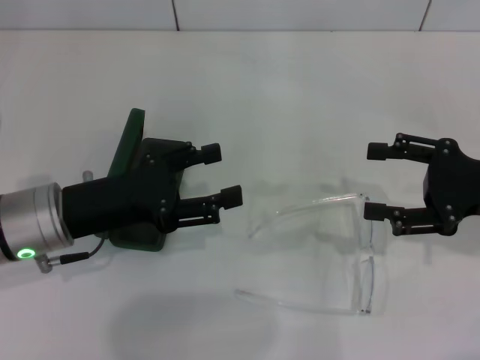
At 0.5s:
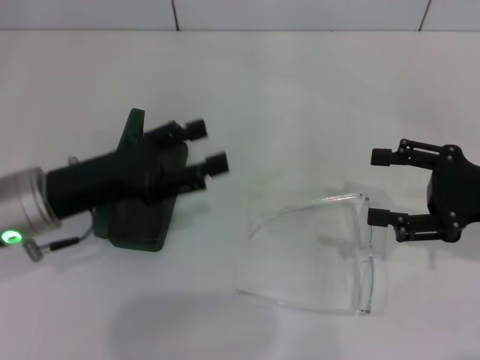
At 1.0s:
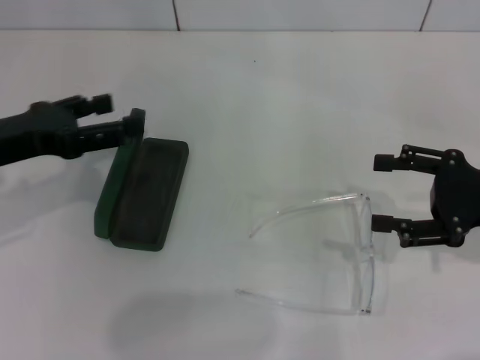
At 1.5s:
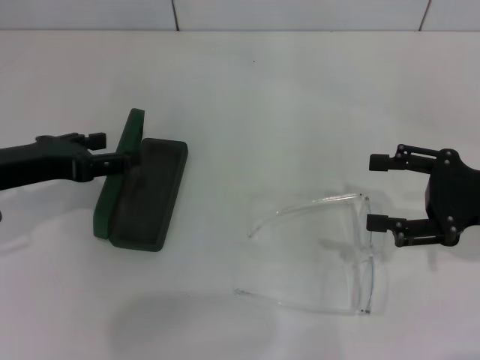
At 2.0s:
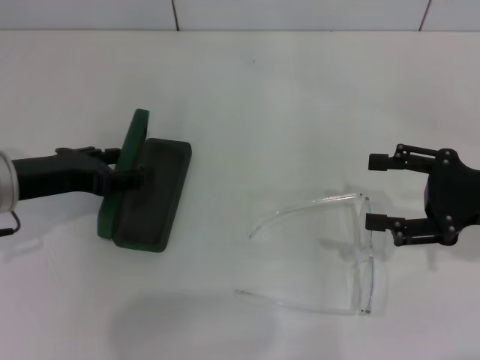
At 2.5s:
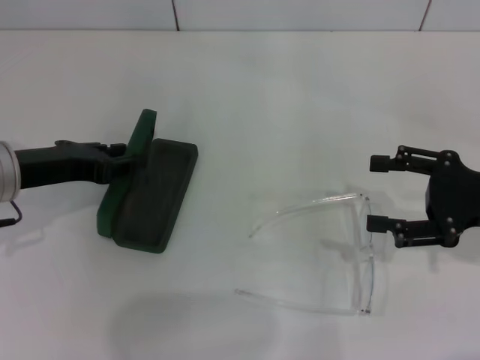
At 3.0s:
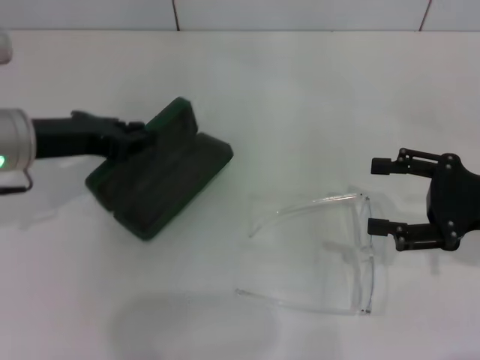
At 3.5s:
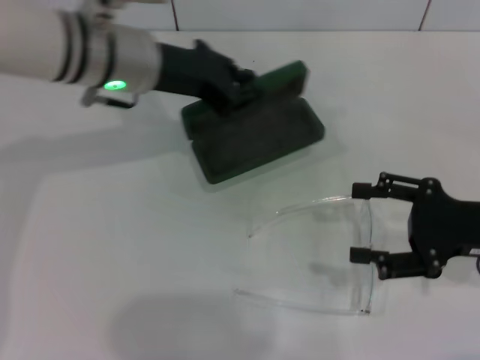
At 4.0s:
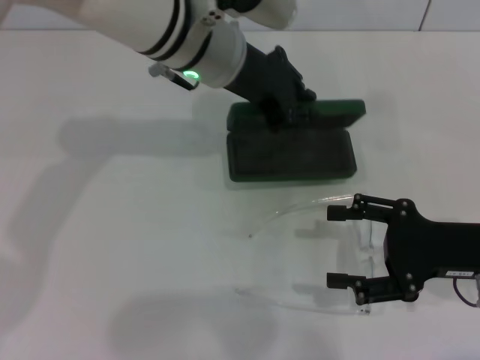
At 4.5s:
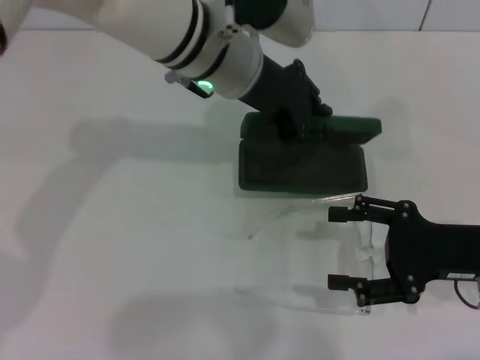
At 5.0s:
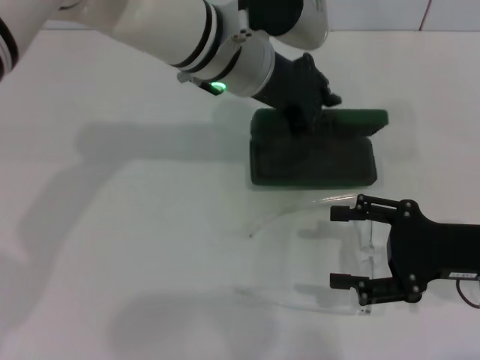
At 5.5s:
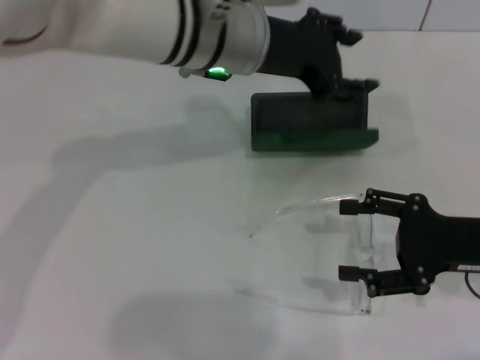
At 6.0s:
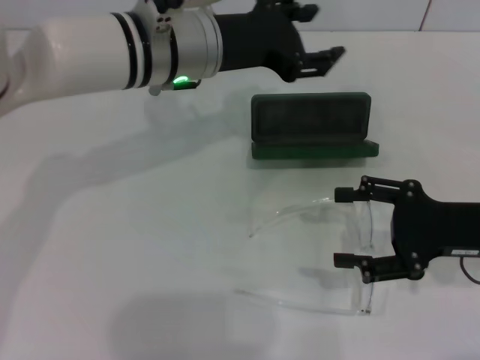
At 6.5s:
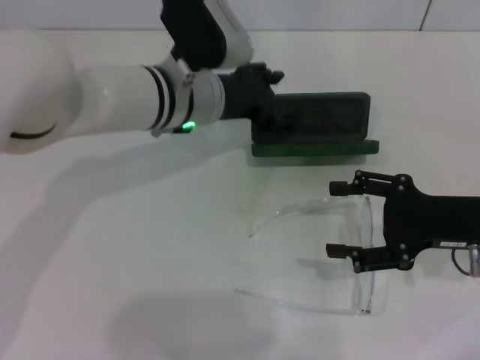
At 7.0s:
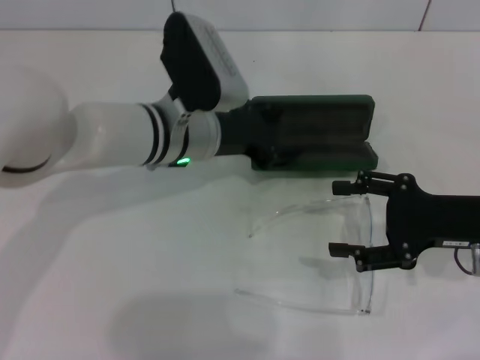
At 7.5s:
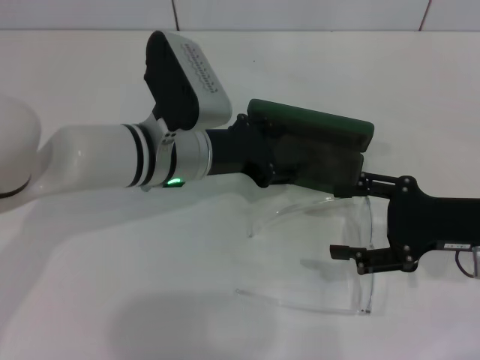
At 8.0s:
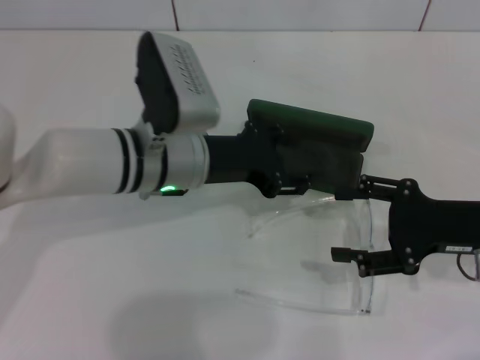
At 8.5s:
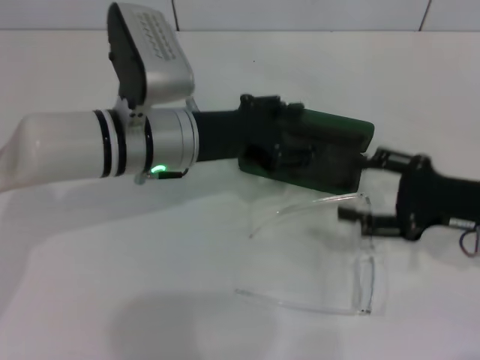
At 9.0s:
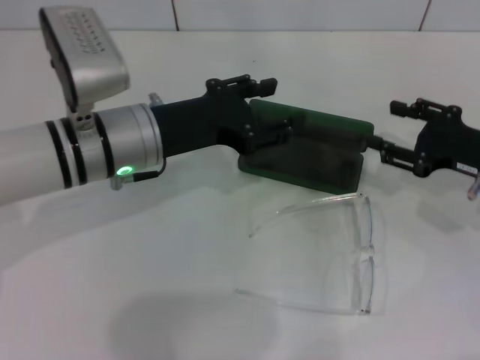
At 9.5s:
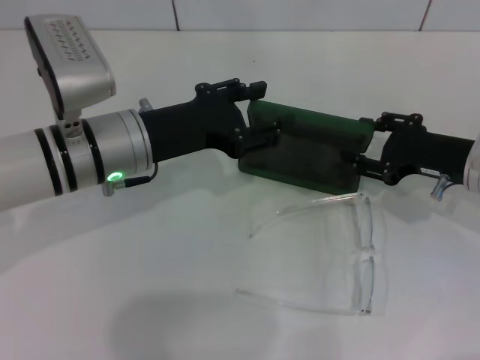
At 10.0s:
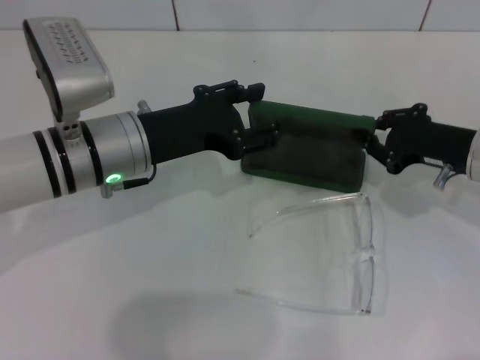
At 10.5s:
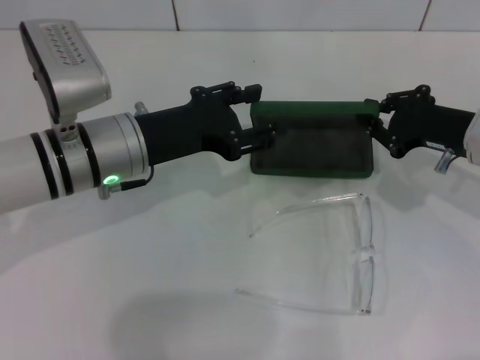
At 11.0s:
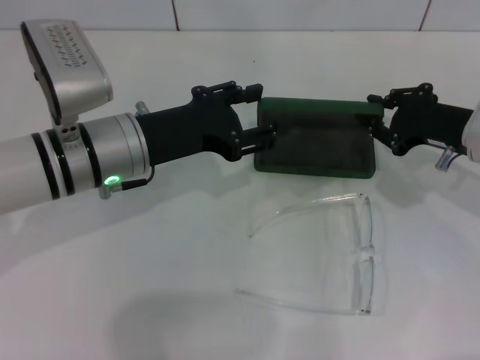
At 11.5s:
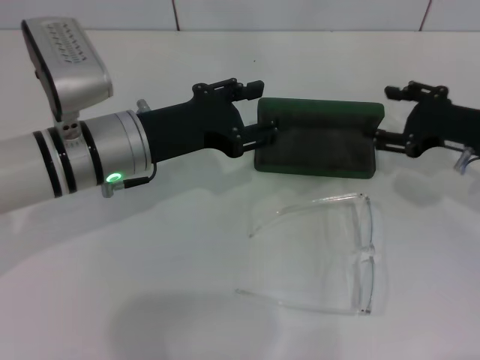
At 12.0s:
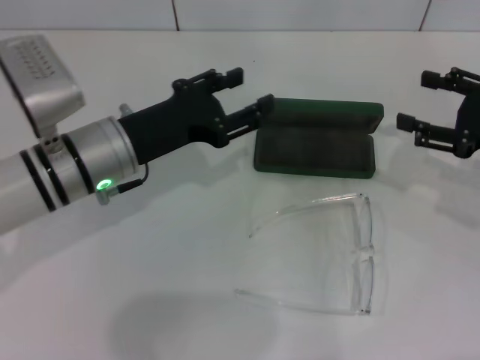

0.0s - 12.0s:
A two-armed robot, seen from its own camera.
Step, 0.0s - 2.5s: Grab the glasses case with your left hand.
Step, 3.0s - 6.0s: Place the glasses case in the center of the table with your left hand.
Step, 6.5s - 11.0s: Place the glasses case in the center of the table with your right hand.
2.0s - 4.0s: The right gripper ends up some 5 cm from where it was, while the left gripper is displaced to the right and forward by approximately 25 cm, and closes its fingers.
4.0s - 6.0s: The left gripper opens up.
6.0s - 8.0s: The left gripper goes about 10 cm downward and backward.
8.0s - 10.0s: The right gripper travels forward by roughly 5 cm, and closes its fingers, while the left gripper changes place by roughly 5 cm.
10.0s - 12.0s: The right gripper moves to the right, approximately 5 cm, and opens.

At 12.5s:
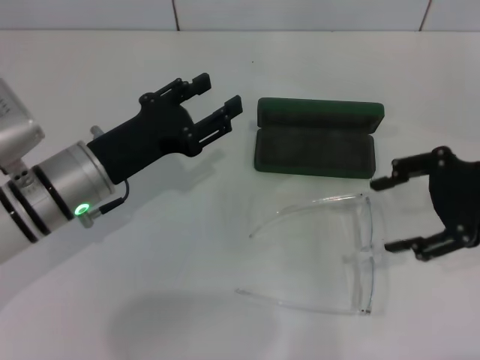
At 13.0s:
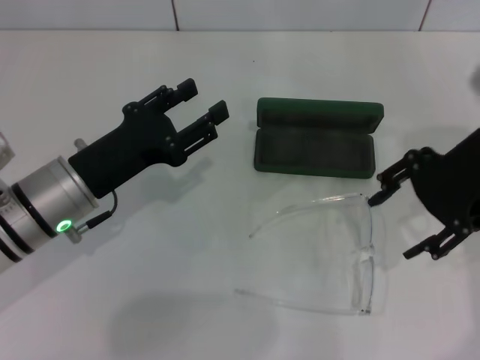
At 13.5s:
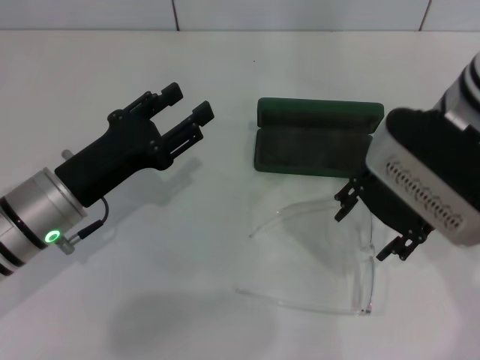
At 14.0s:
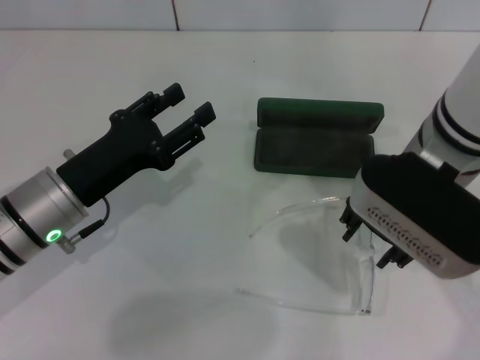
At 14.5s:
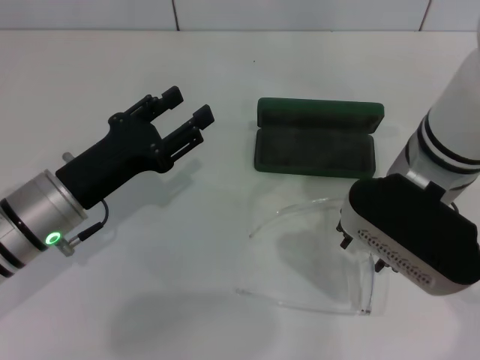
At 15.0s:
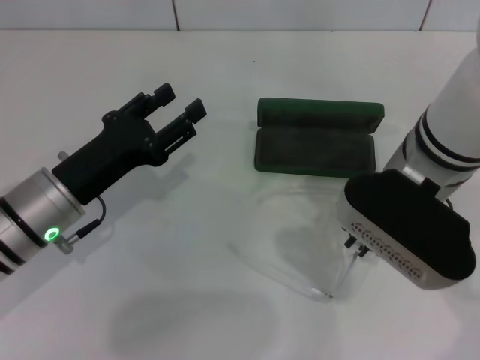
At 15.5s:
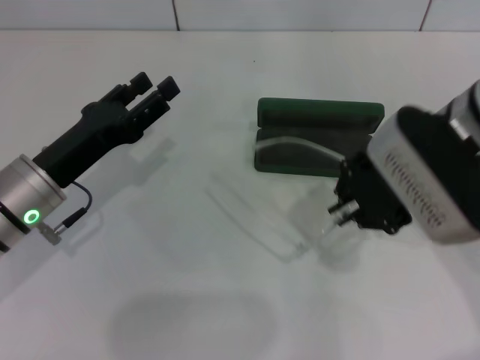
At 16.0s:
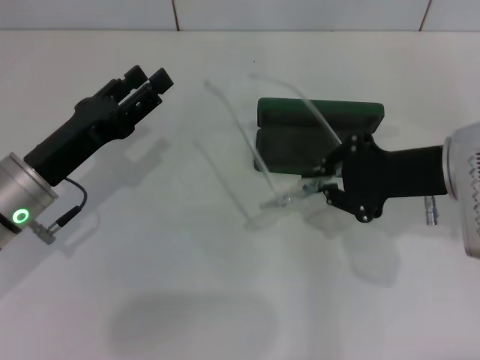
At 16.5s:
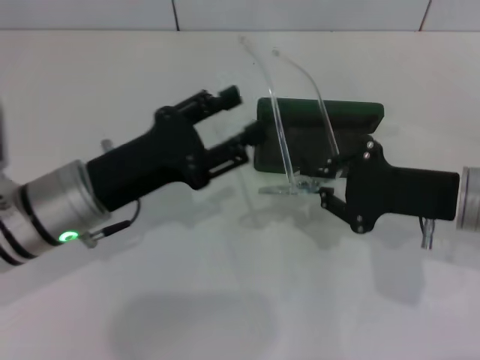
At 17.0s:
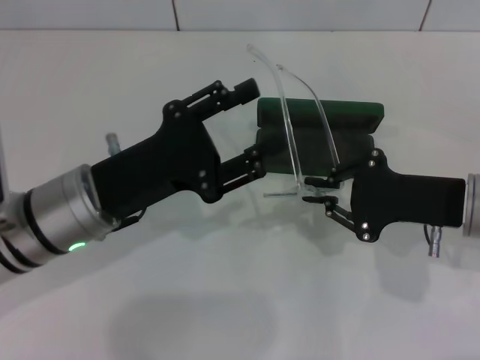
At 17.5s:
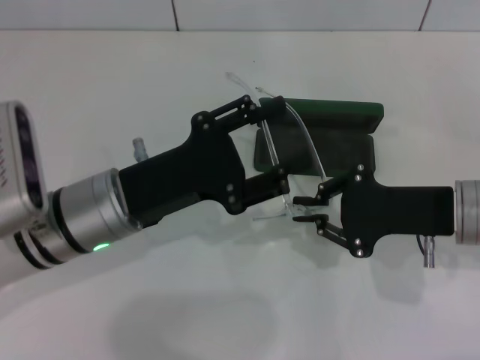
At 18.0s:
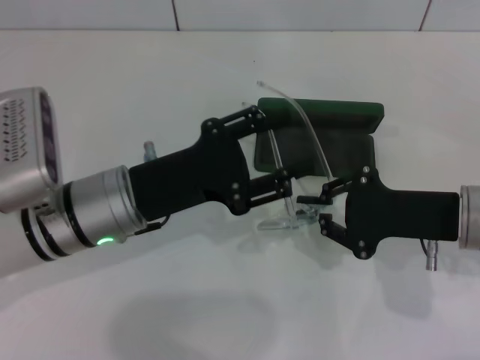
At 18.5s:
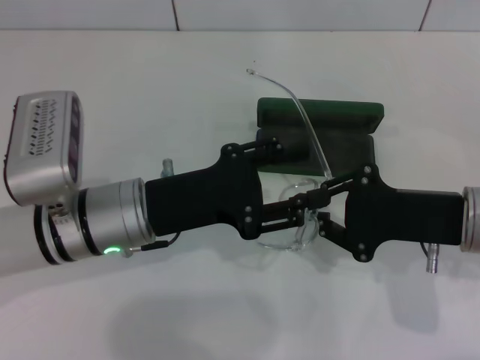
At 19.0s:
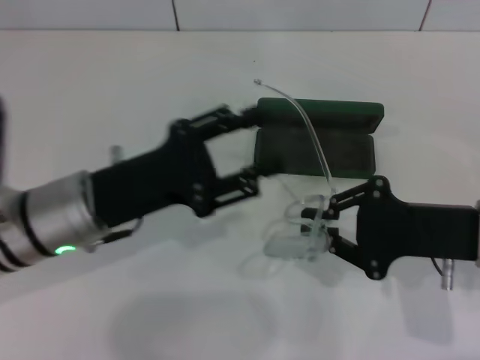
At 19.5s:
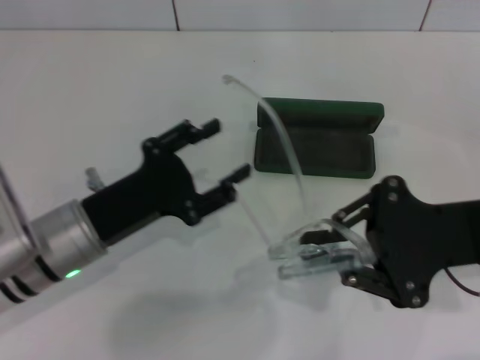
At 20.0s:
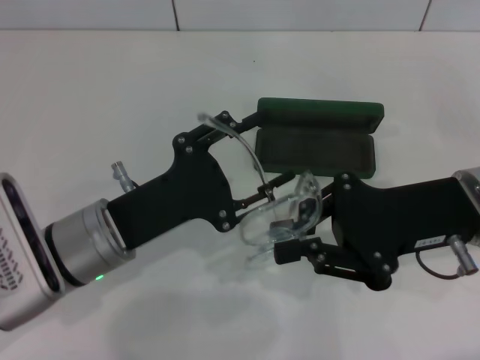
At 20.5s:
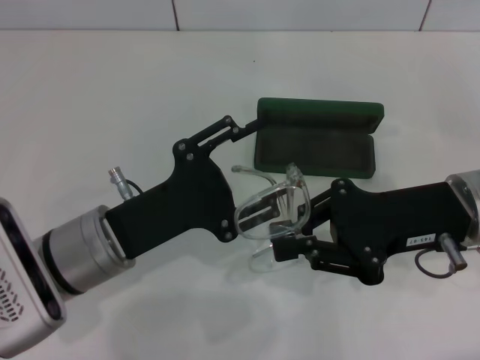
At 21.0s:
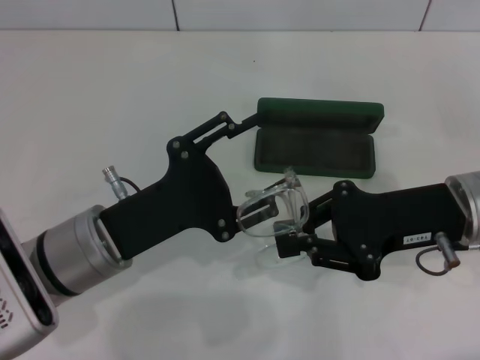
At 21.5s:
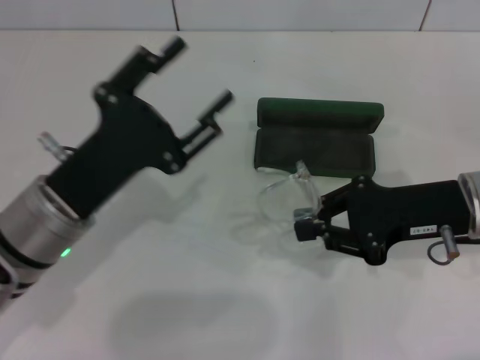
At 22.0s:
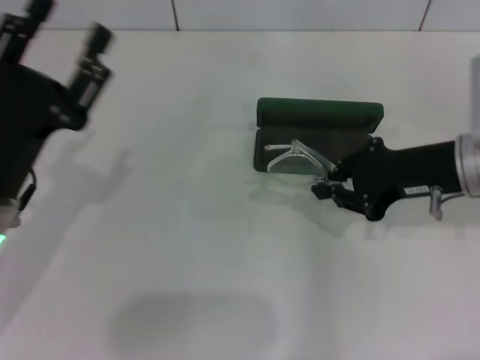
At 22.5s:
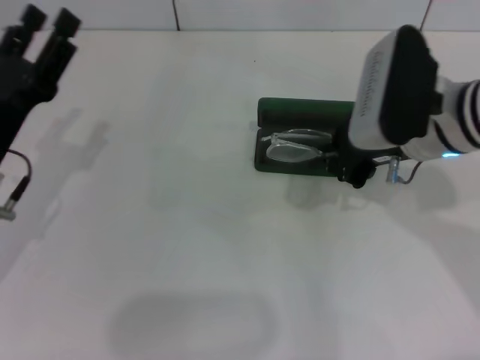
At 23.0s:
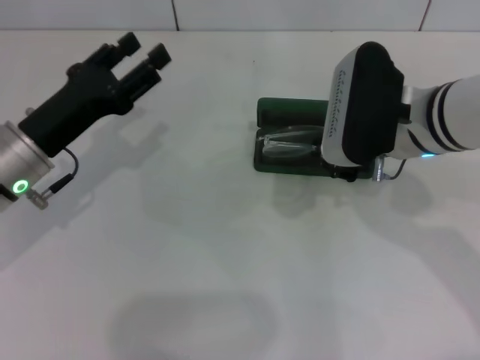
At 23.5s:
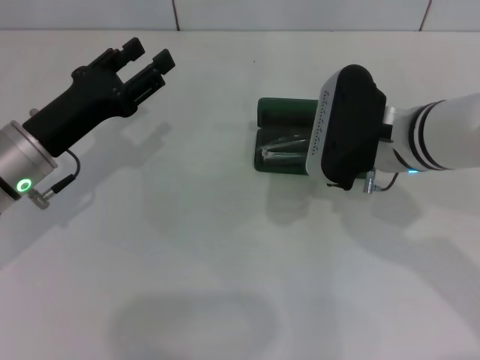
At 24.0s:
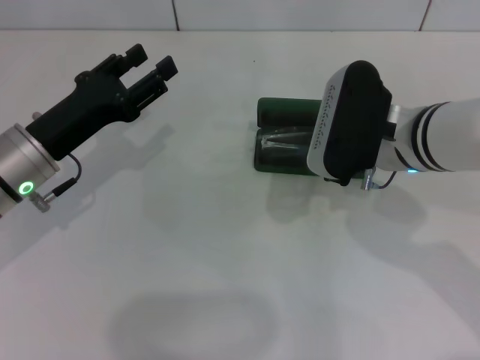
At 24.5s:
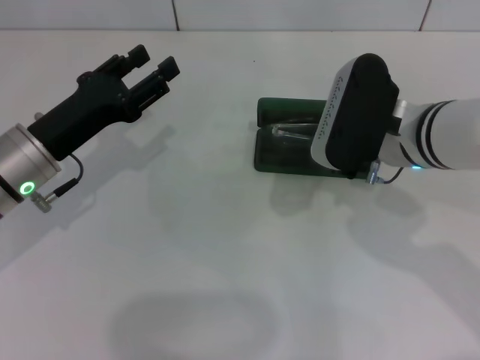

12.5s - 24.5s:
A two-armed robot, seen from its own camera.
Step, 12.5s - 14.5s: Grab the eyeglass frame with your right hand.
Step, 15.0s - 21.0s: Fold the frame with your left hand.
12.5s - 14.5s: The right gripper travels to the left by approximately 15 cm.
14.5s - 16.5s: The right gripper heads to the right and downward, covering roughly 10 cm, and closes up.
20.5s - 22.5s: The right gripper moves forward, some 5 cm. The left gripper goes roughly 10 cm to the left.

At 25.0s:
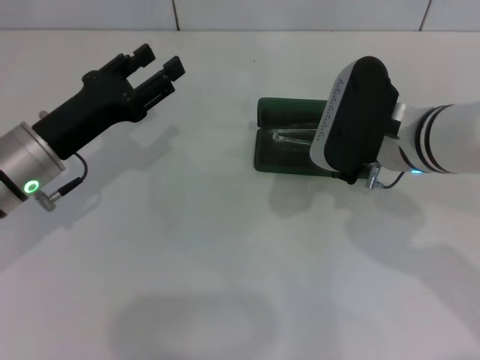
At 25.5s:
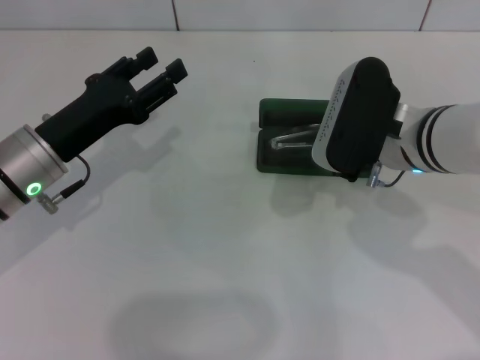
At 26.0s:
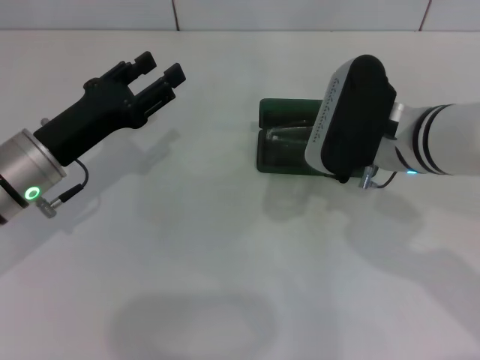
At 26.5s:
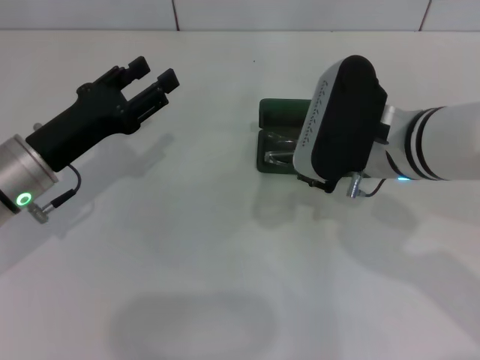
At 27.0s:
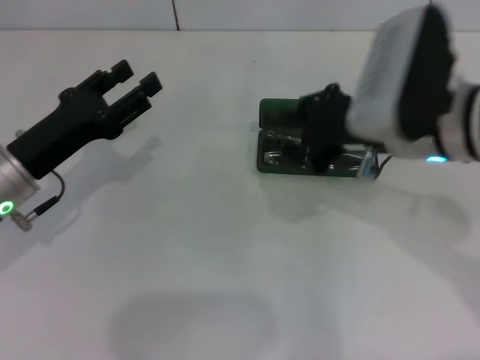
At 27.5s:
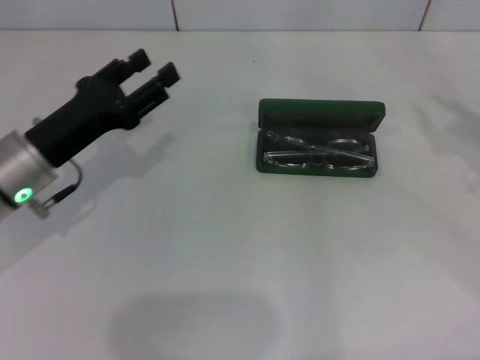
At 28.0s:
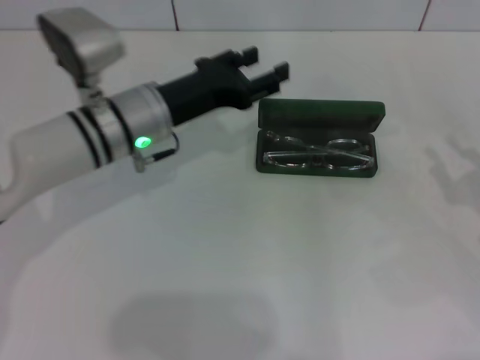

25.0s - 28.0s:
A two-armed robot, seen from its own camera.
25.0s - 26.5s: The grippers move only a little.
26.5s - 28.0s: The left gripper shifts roughly 10 cm to the right and forward, while the right gripper travels to the right and backward by some 25 cm.
